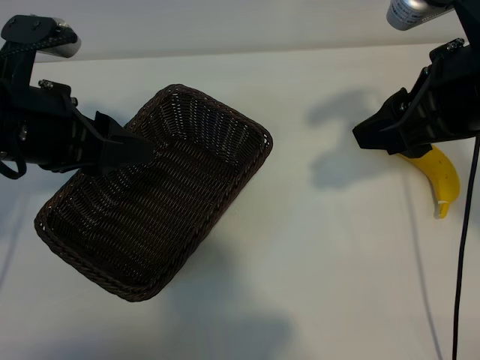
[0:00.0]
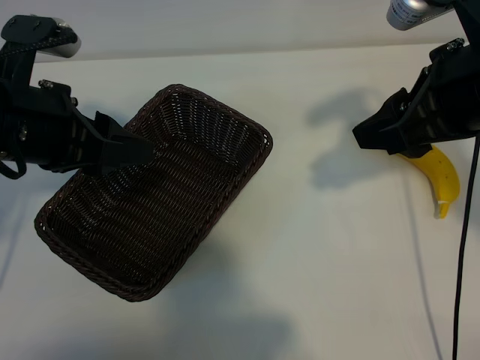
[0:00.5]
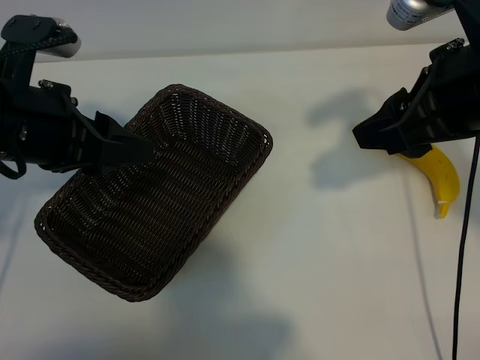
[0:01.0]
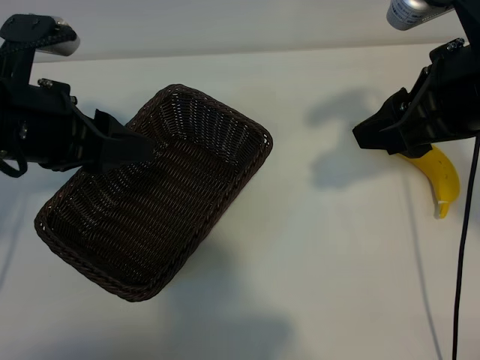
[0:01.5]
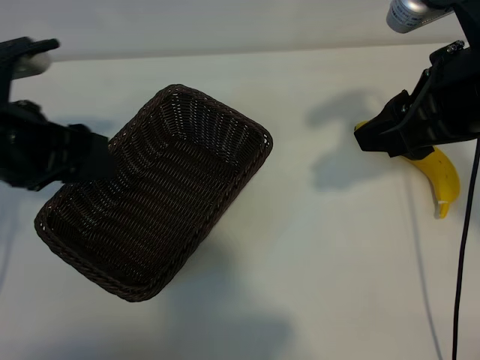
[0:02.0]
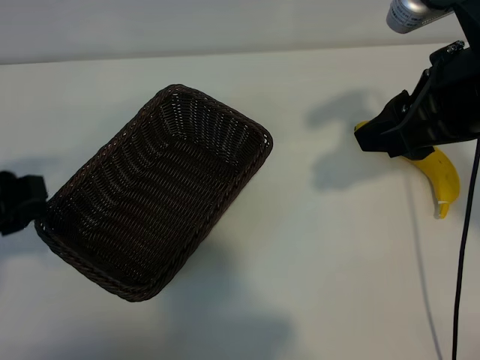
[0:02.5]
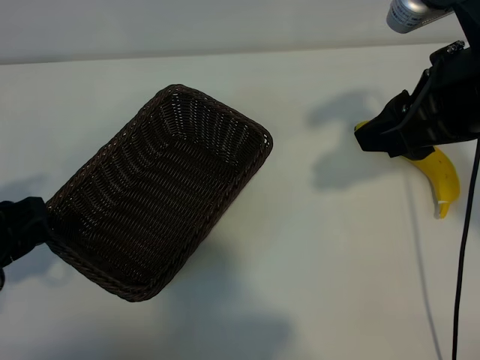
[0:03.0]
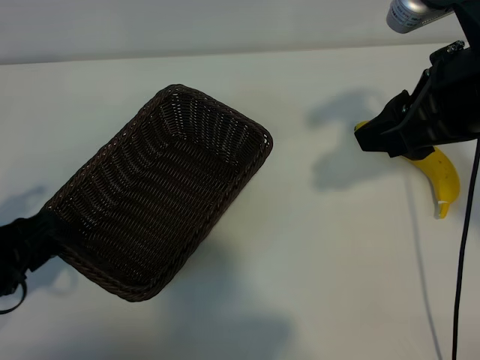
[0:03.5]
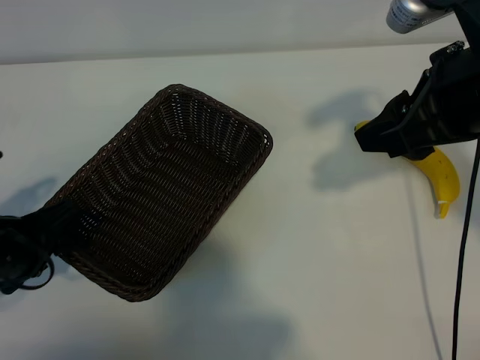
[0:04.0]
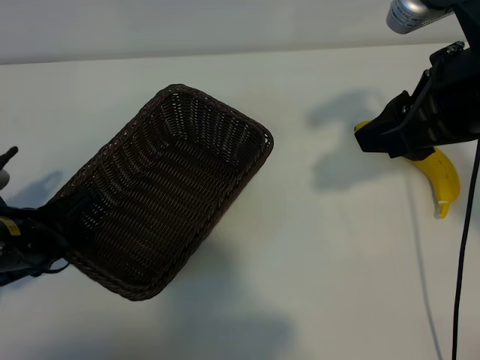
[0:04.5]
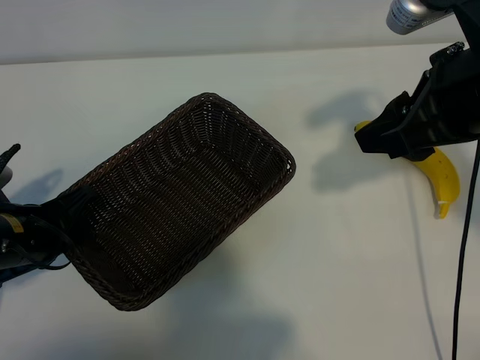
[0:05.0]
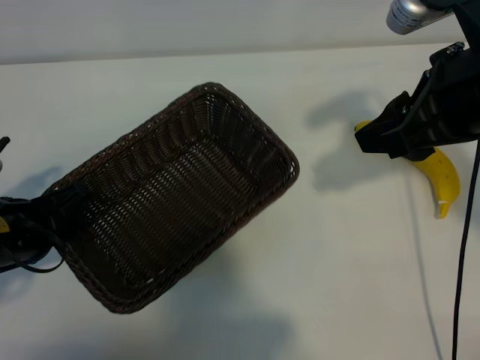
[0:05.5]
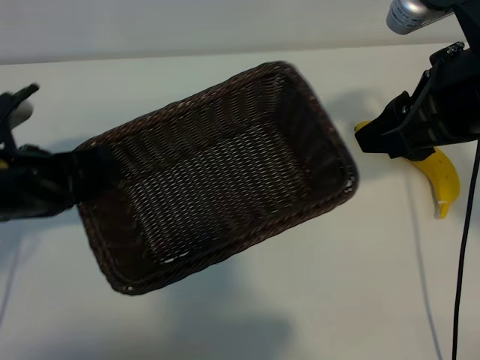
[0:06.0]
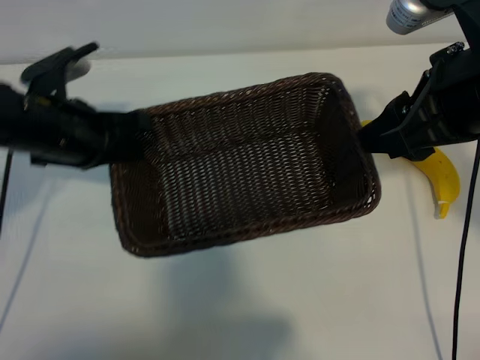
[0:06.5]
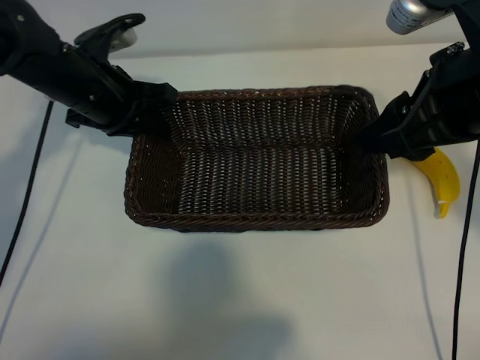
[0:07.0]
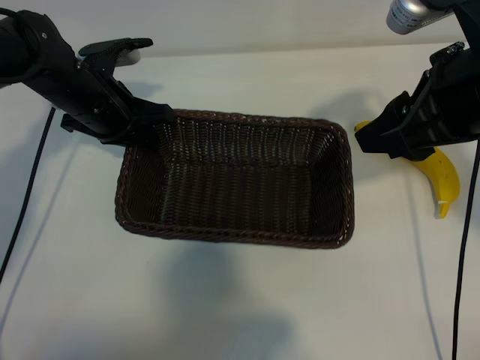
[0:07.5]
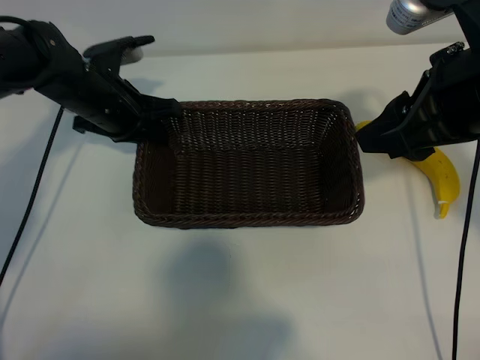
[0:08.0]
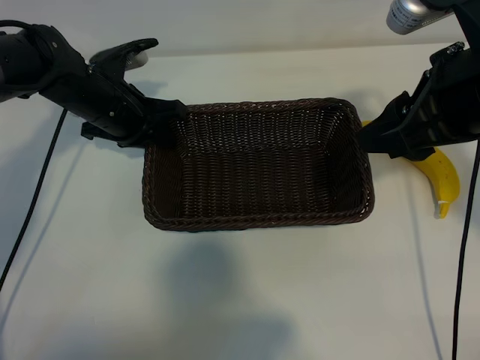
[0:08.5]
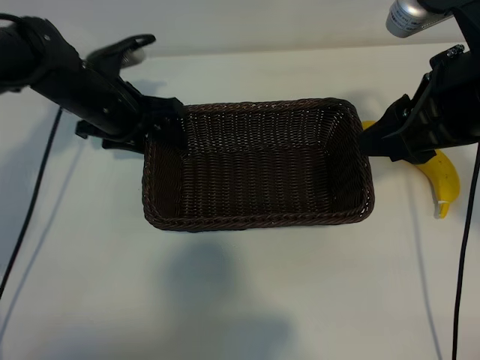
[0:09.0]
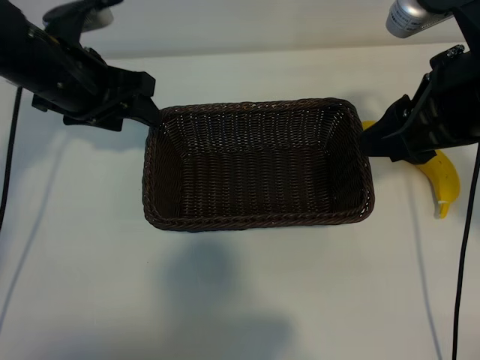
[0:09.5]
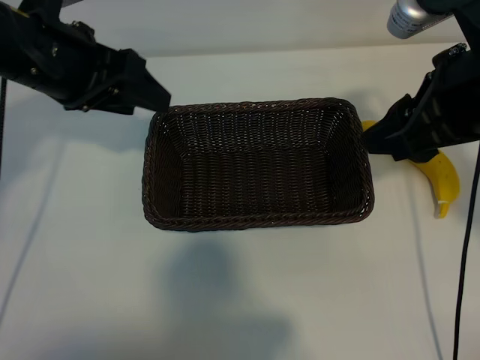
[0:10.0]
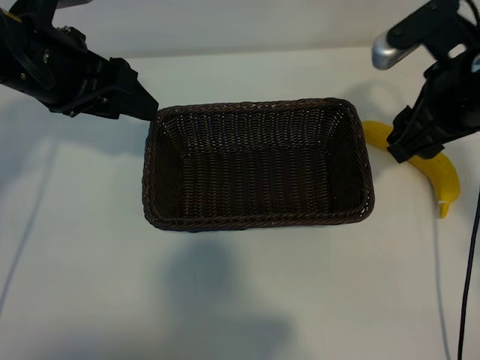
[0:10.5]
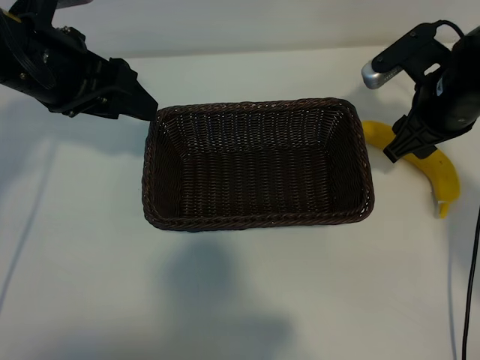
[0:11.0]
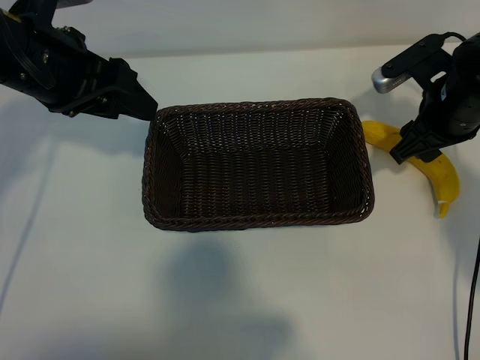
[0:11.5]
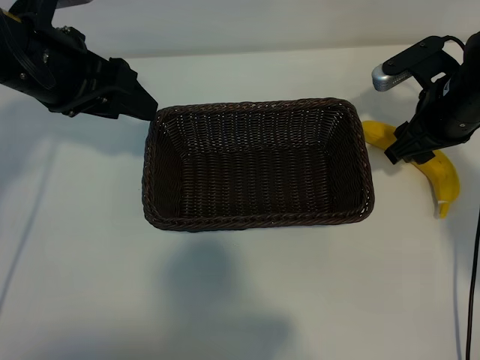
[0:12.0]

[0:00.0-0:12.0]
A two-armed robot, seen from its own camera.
Task of the whole recording: pick up the banana and put it into the basket.
Step, 0:01.5 to 0:04.5: Grasp the basket with the left gripper.
Step, 0:05.0 to 0:09.0: Place the basket in the center of the table with the left gripper.

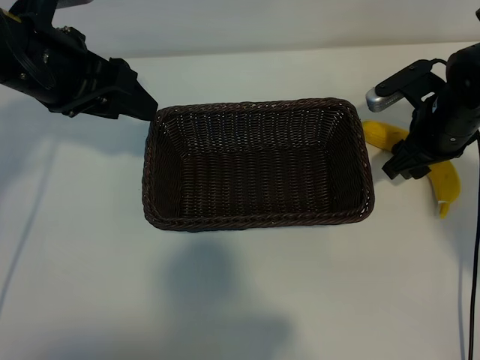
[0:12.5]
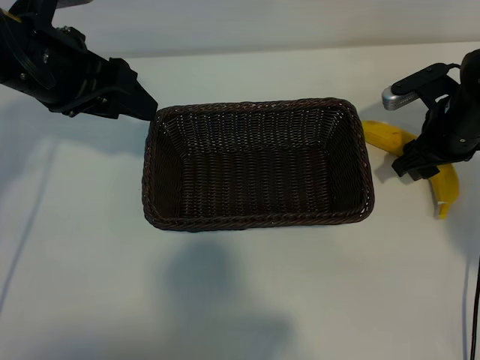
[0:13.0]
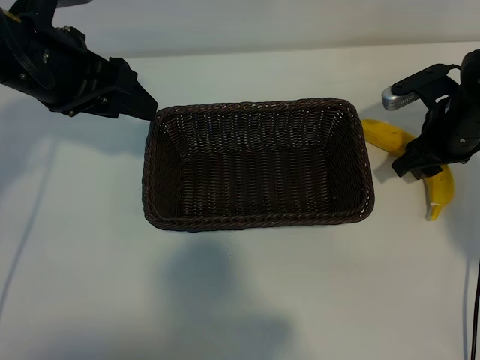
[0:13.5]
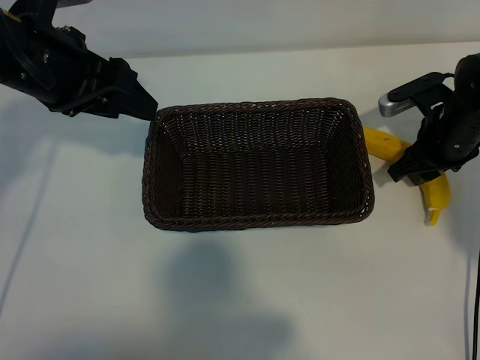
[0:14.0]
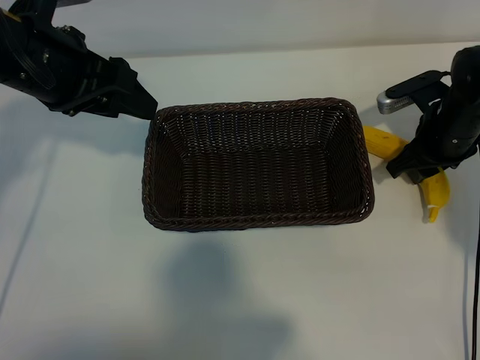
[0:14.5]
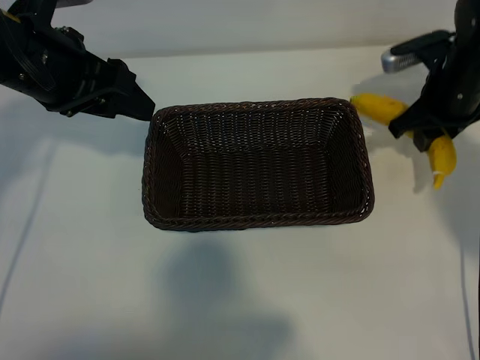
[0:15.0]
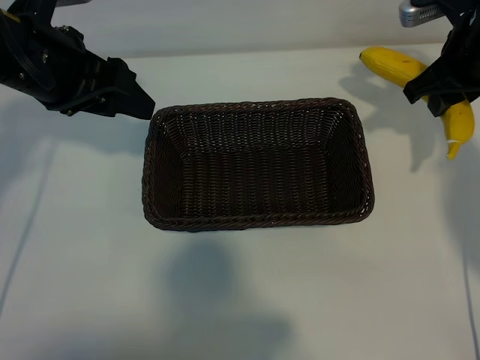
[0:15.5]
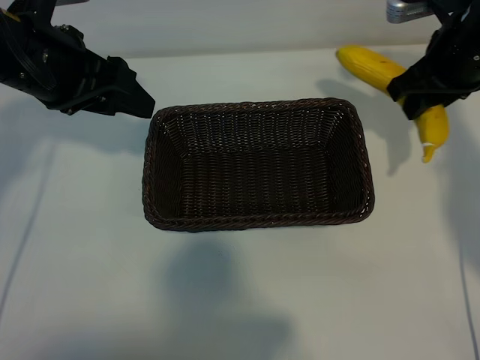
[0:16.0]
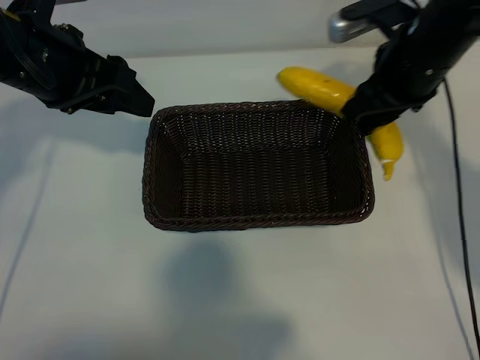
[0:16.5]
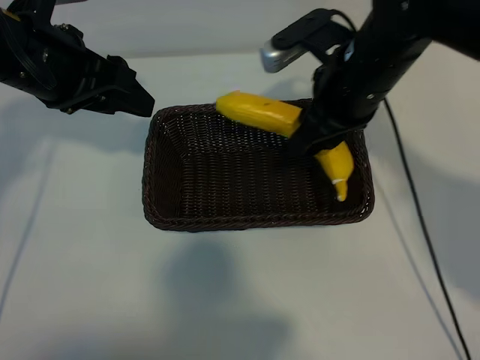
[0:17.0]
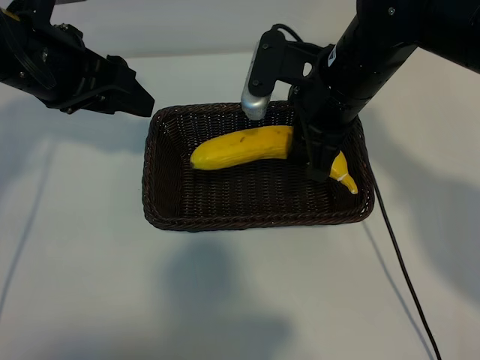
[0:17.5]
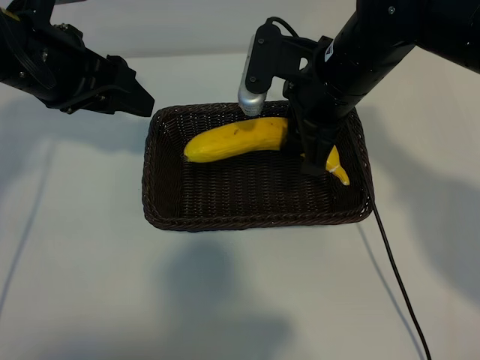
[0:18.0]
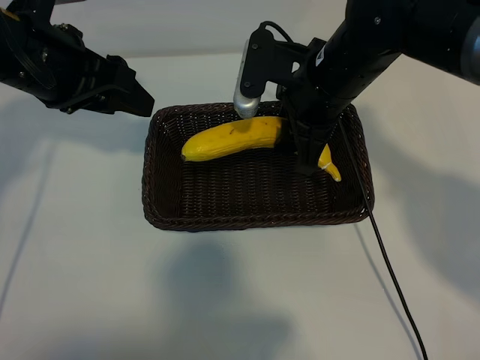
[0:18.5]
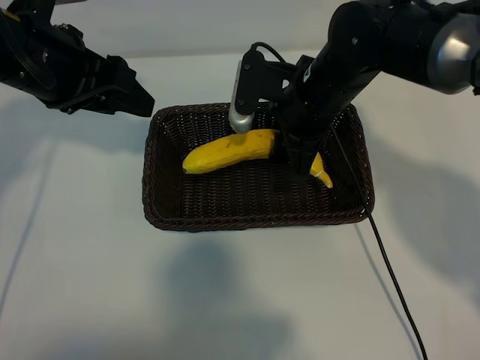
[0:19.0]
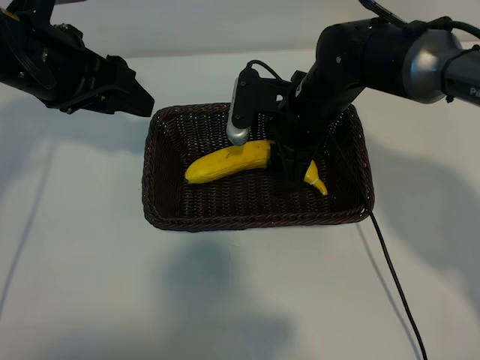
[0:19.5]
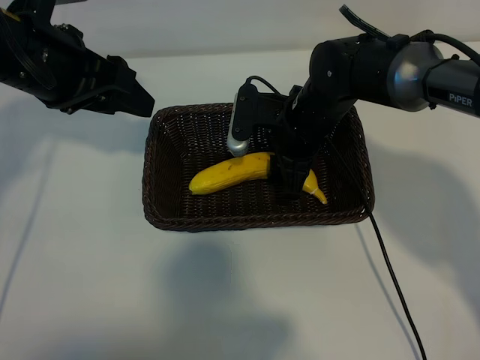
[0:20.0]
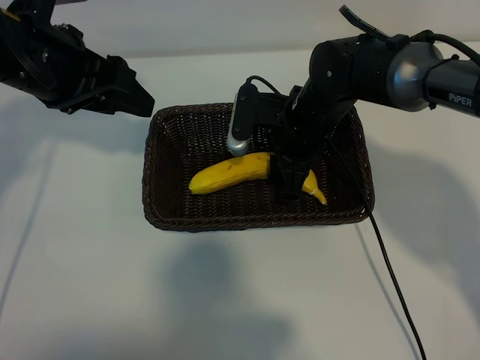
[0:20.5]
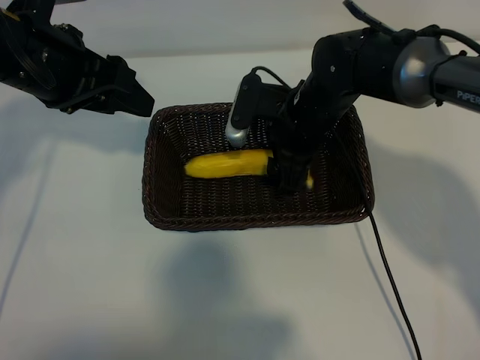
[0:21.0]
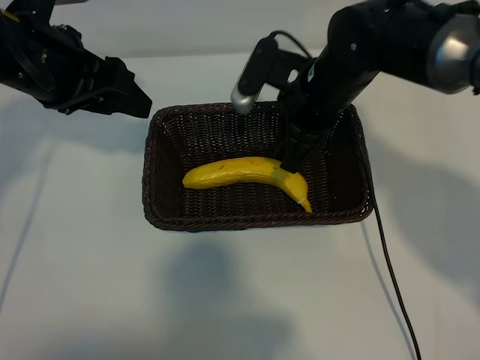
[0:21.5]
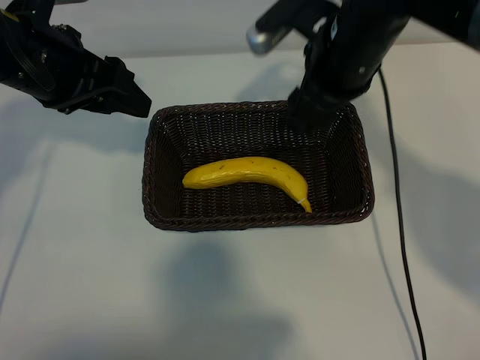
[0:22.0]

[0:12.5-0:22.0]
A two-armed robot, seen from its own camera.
Task of the whole recording: pick up the banana and put it into the basket.
Step, 0:14.5 to 0:21.0: Place the banana in the basket with right gripper.
